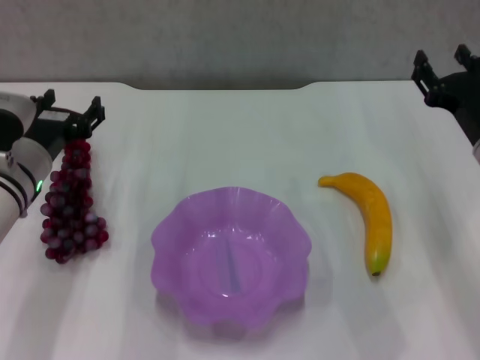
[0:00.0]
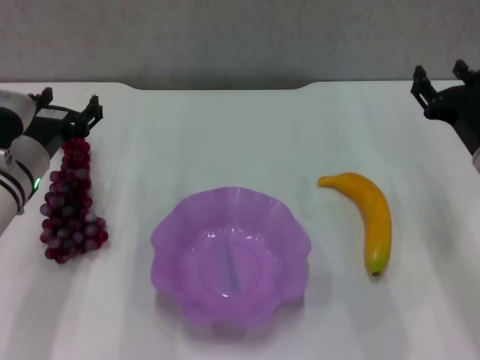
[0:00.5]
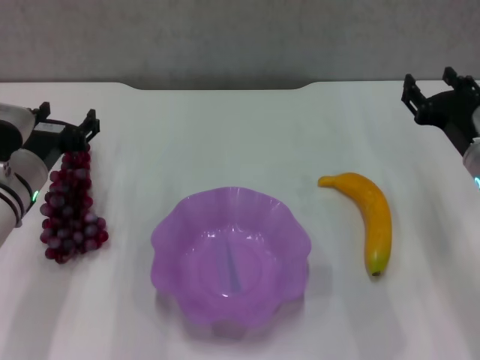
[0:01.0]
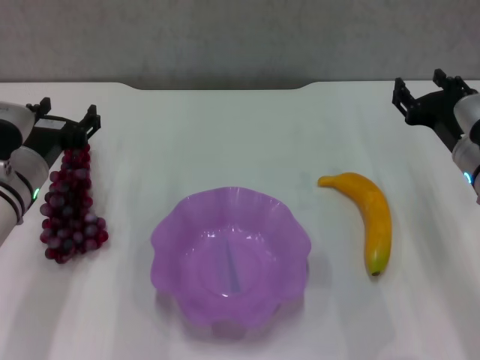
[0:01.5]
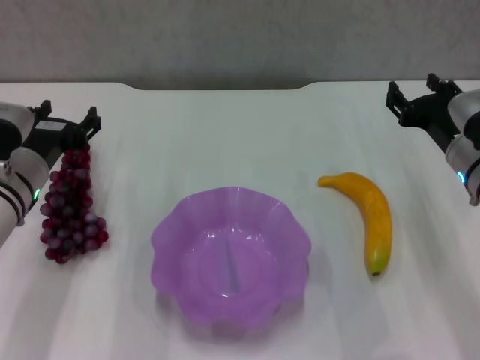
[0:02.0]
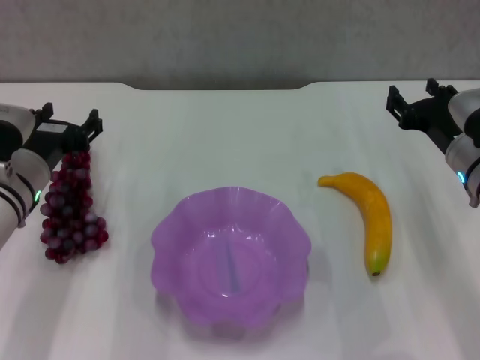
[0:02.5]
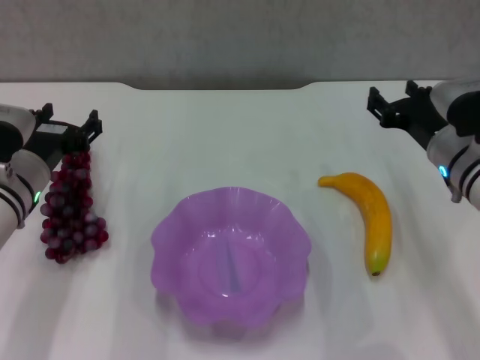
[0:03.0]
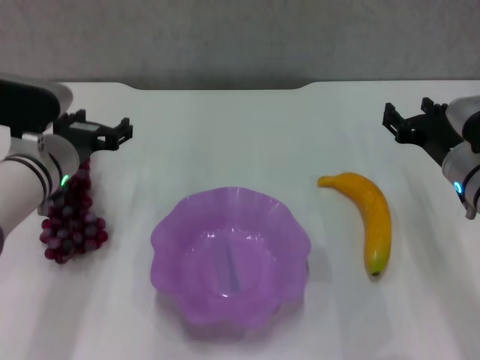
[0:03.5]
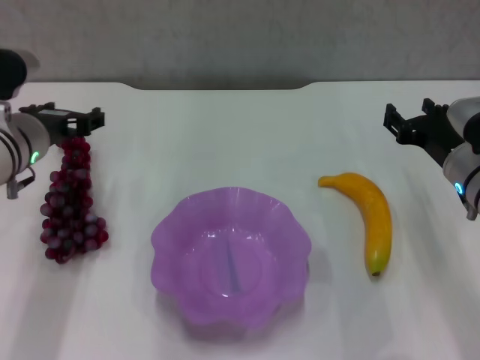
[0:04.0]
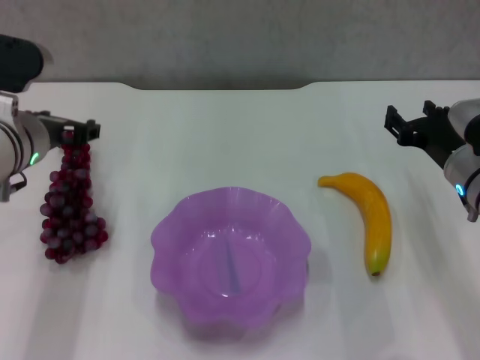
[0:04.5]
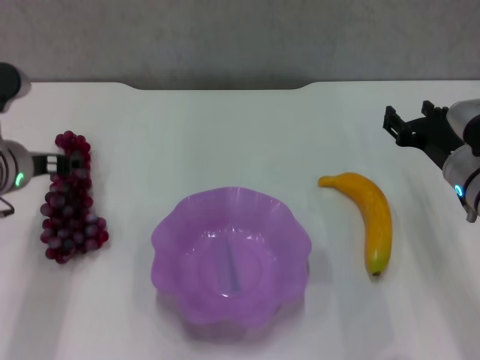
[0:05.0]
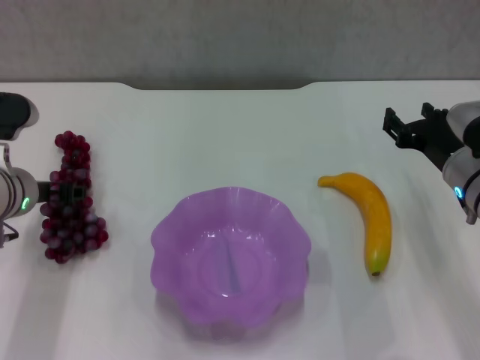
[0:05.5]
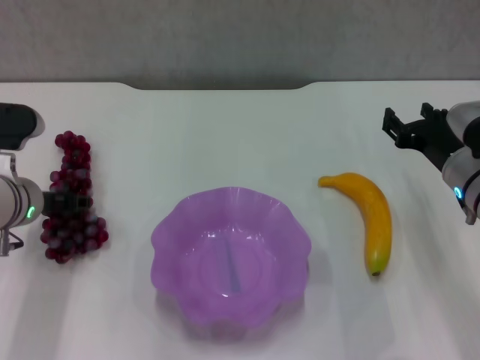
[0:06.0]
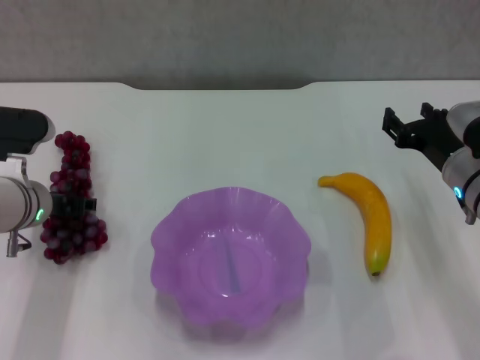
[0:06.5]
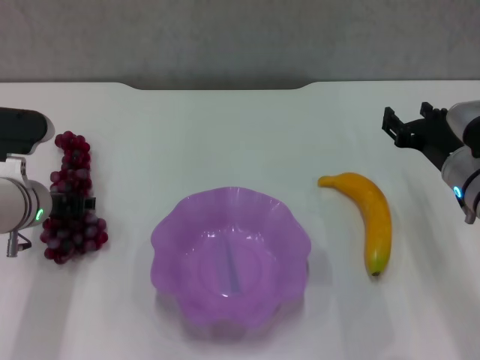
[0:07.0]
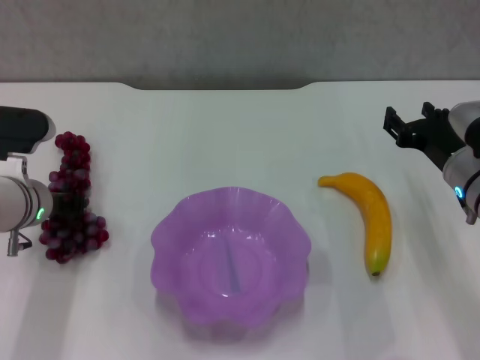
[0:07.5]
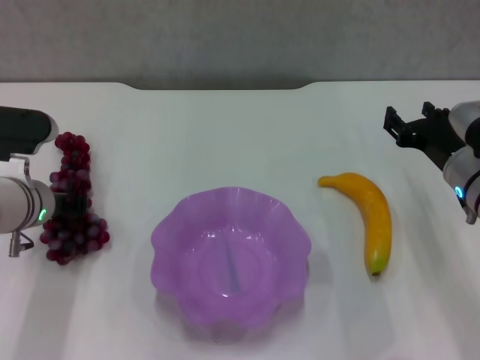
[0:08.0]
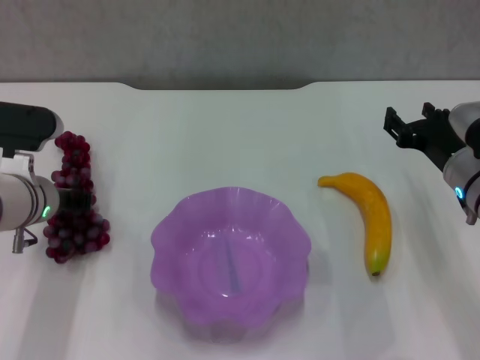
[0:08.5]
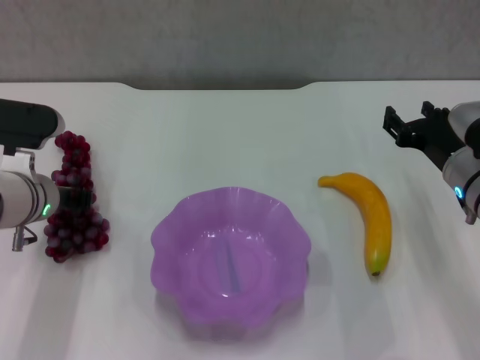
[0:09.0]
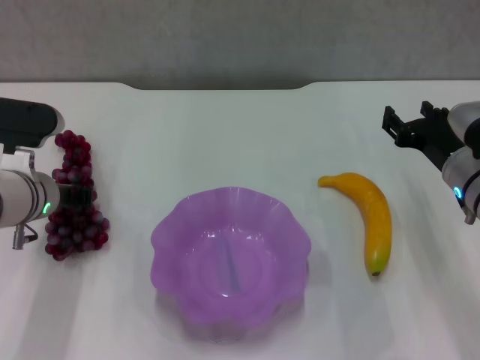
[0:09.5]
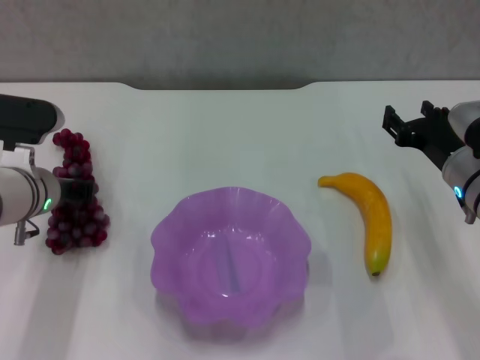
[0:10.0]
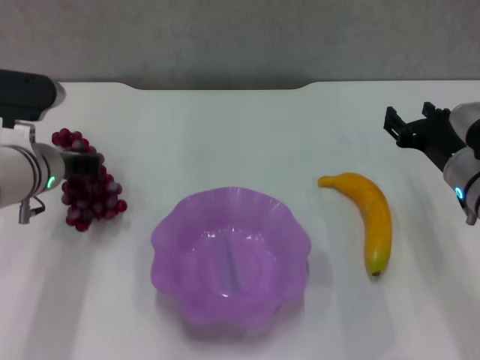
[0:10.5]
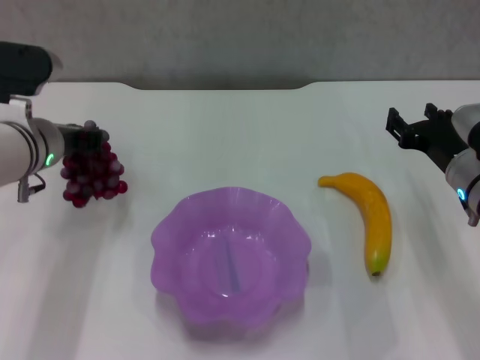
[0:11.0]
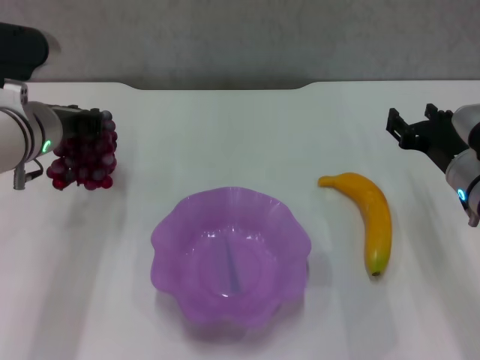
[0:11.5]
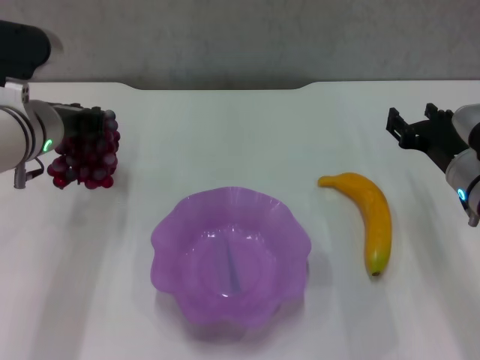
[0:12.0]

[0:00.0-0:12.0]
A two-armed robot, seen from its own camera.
Step, 0:00.0 to 0:09.5: Grasp the grape with left gripper.
0:00.0 to 0:02.0: The grippers stay close to where they were, moving slightly.
0:02.0 to 0:04.0: The left gripper travels upward by about 5 cm.
0:06.0 to 0:08.0: The left gripper closes up.
0:08.0 to 0:10.0: Both grippers stay about where they are.
0:10.0 to 0:12.0: The left gripper is displaced upward by some 5 cm.

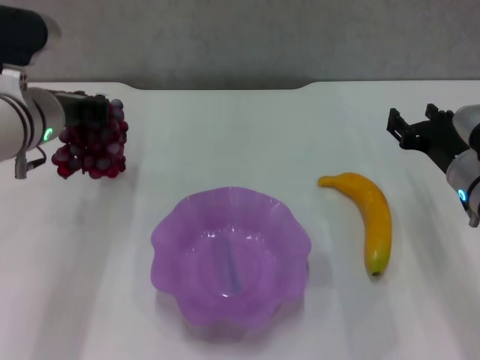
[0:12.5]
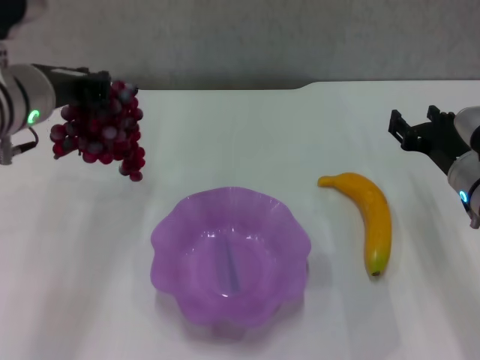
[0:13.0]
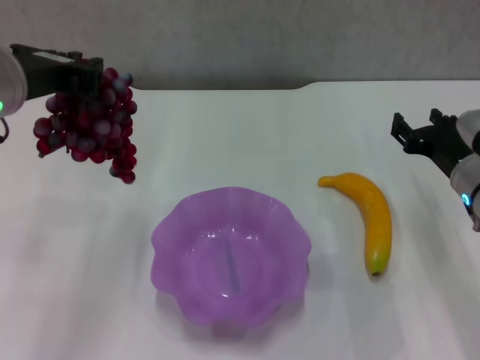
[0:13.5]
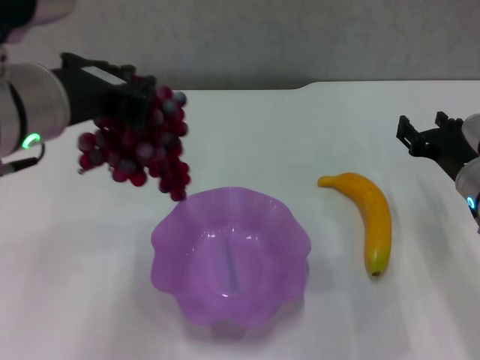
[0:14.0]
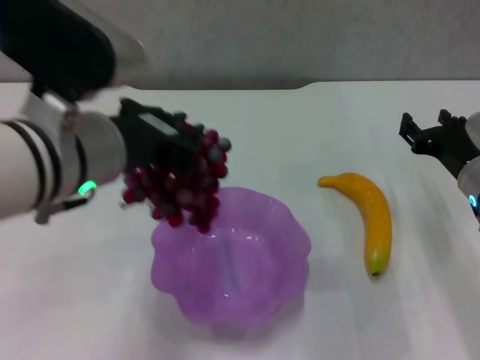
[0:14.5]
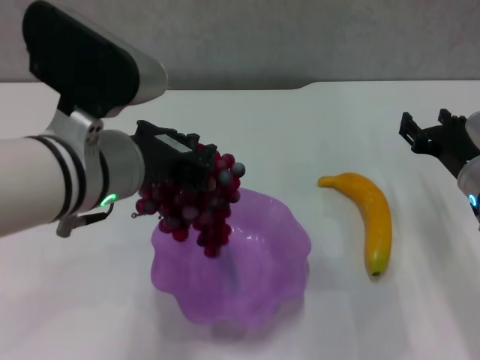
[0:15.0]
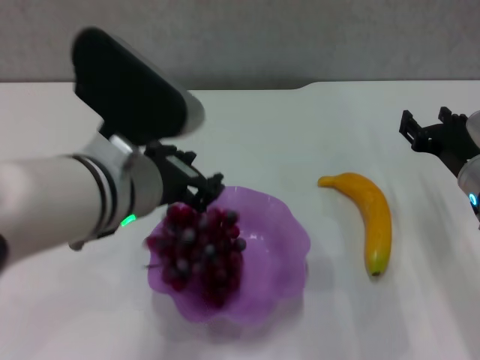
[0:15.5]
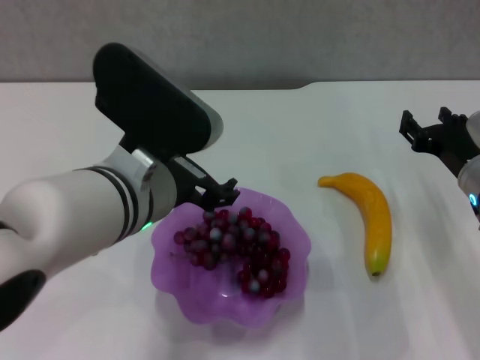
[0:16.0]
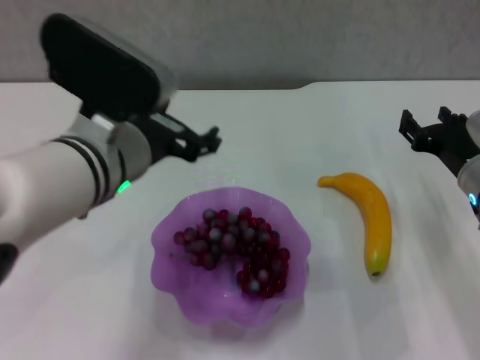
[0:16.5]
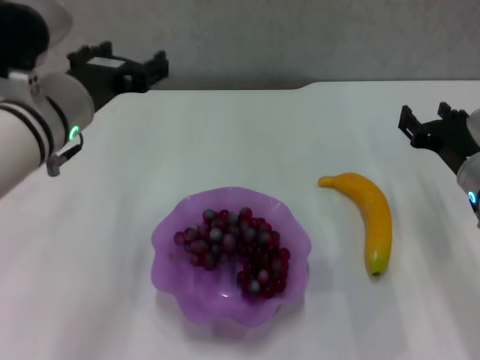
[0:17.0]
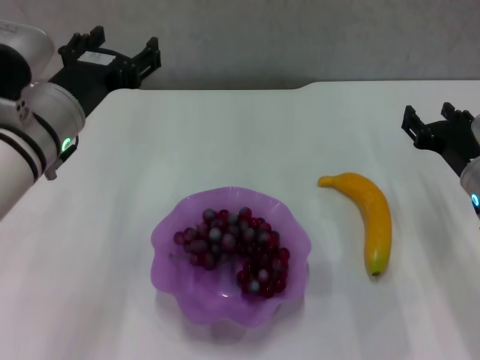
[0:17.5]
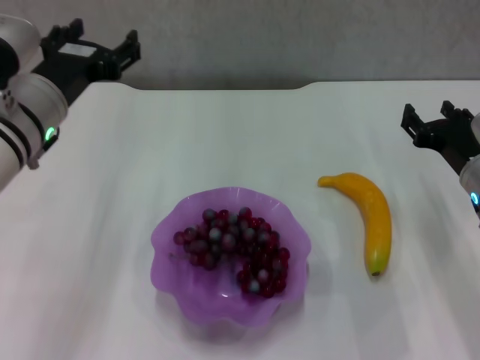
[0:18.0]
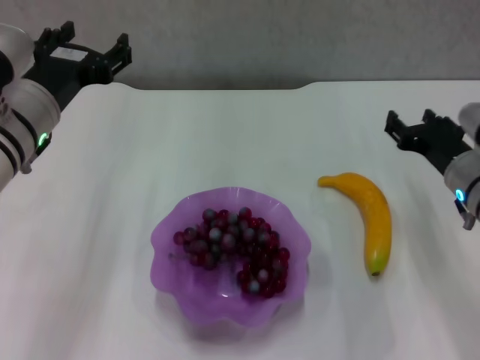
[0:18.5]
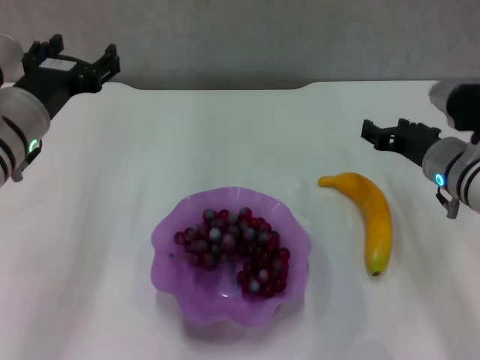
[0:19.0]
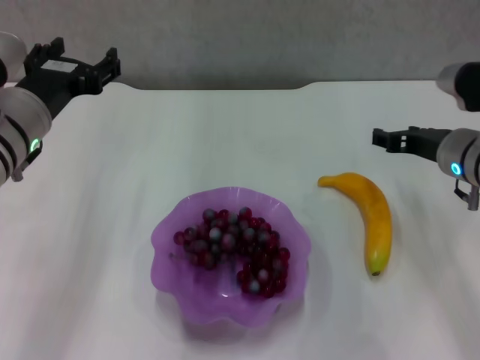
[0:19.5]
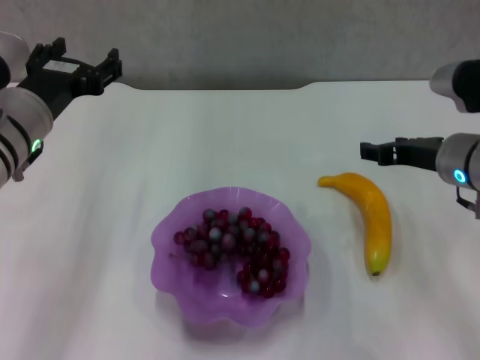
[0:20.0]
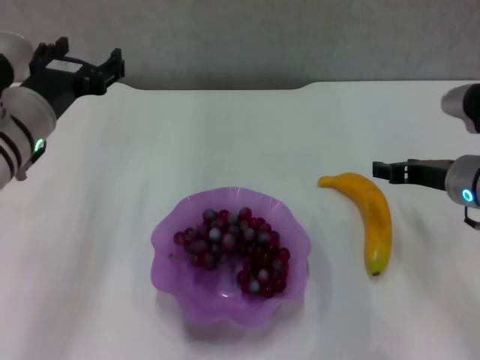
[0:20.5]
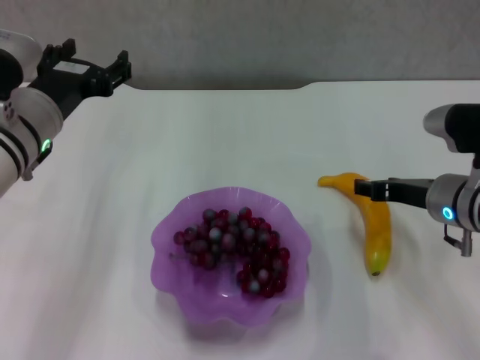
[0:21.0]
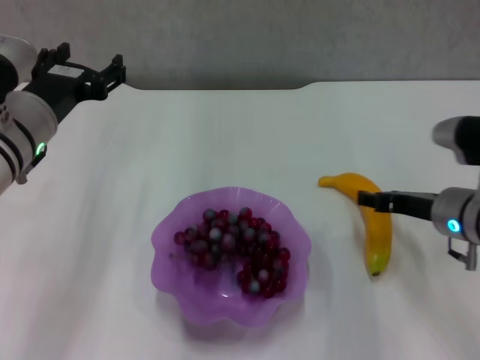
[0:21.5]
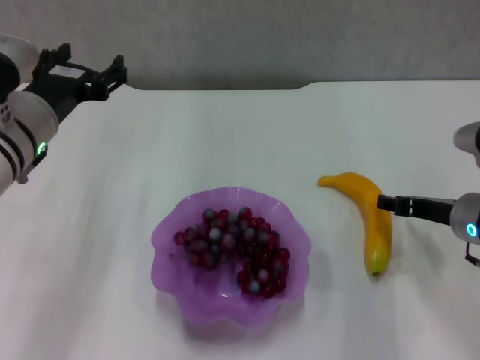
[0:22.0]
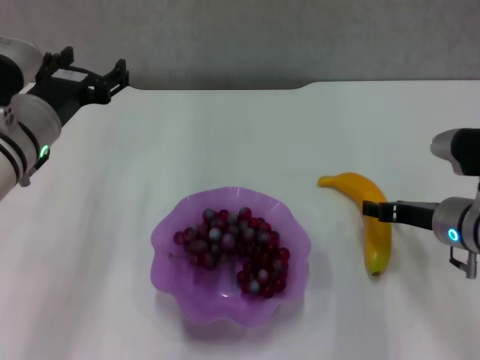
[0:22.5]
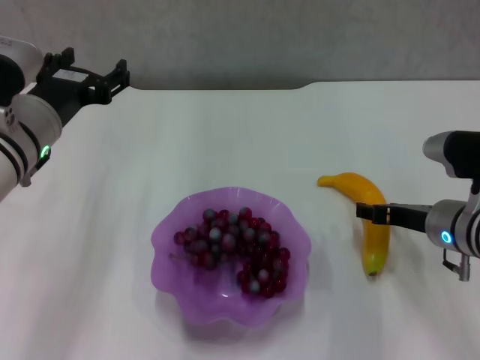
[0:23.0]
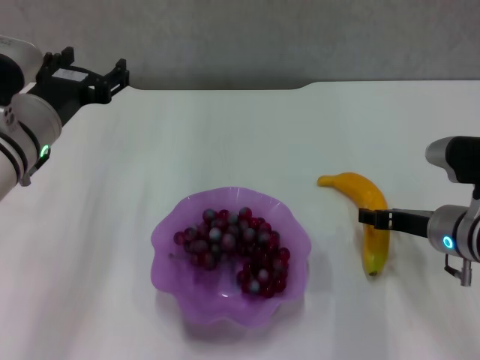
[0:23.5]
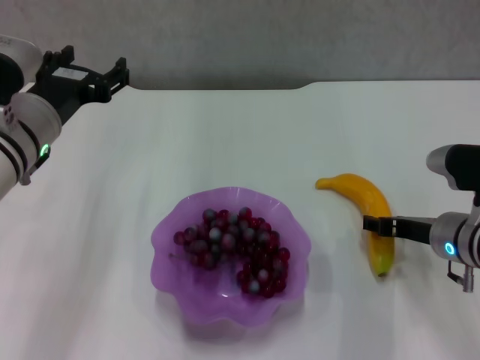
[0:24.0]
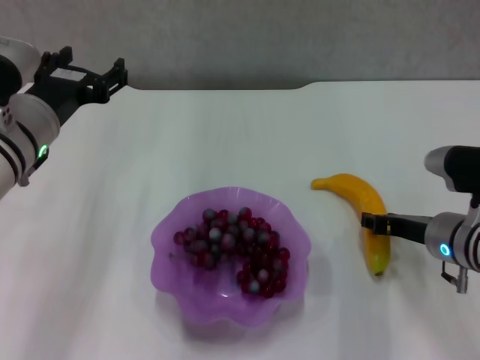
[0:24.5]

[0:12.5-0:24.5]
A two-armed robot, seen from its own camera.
Step, 0:12.5 to 0:16.0: Place the grape in the purple plate with left gripper.
Step, 0:16.5 to 0:24.0: Grasp the banana with right gripper.
0:12.5 to 0:14.5: The left gripper moves backward, to the right and upward, about 15 cm.
0:14.5 to 0:16.5: The left gripper opens up.
0:16.5 to 0:18.5: The left gripper is displaced to the left and forward by about 10 cm.
0:20.5 to 0:22.5: The grippers stay close to where they were, moving slightly.
0:22.5 to 0:24.5: The grippers move only a little.

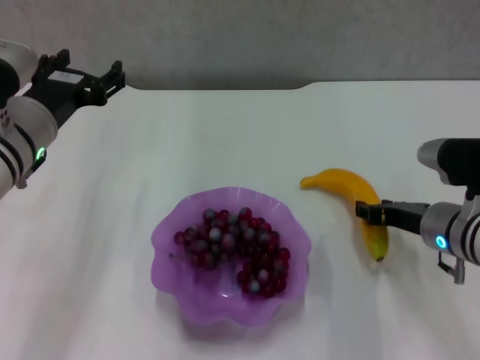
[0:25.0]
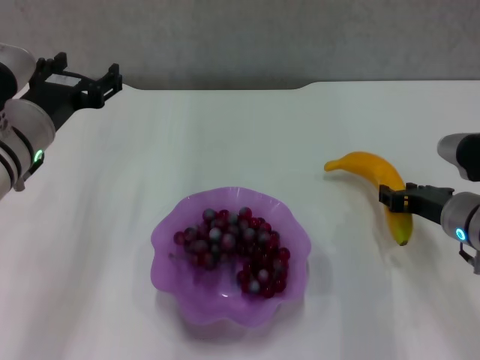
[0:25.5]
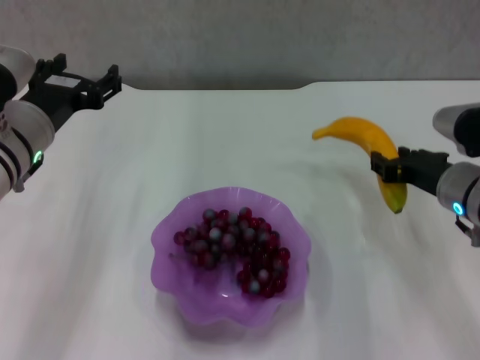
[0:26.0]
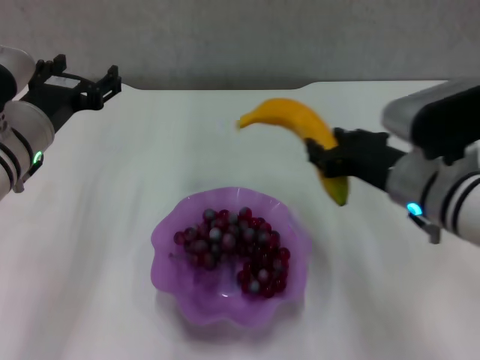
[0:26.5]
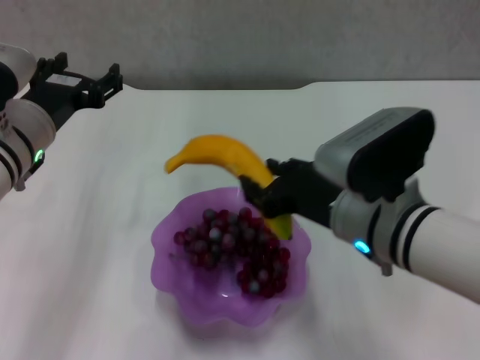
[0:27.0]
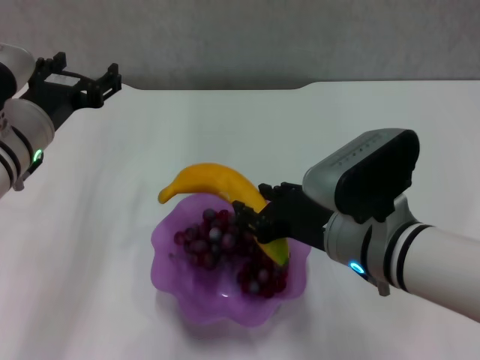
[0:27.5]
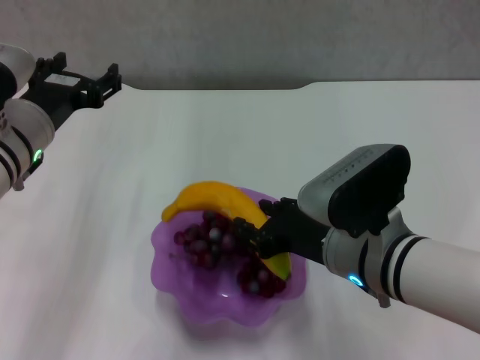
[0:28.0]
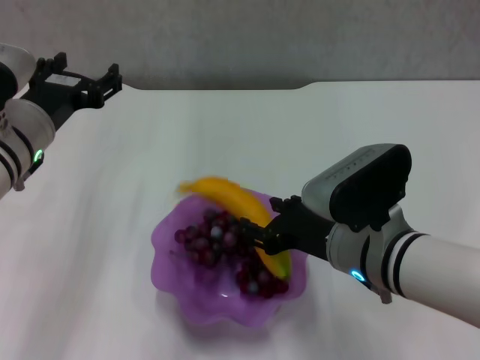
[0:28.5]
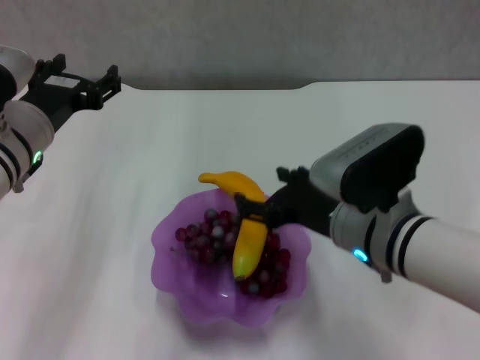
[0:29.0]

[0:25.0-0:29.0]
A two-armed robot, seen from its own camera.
0:25.0 to 0:27.0: The right gripper shifts about 15 cm to the left and upward.
0:27.0 to 0:29.0: The right gripper opens.
